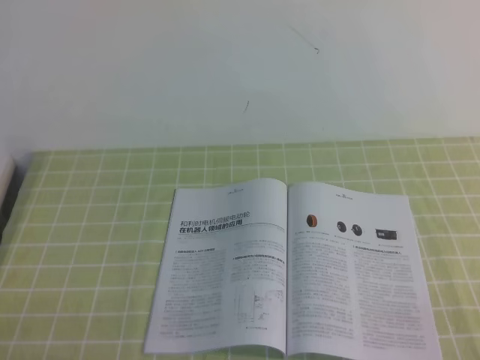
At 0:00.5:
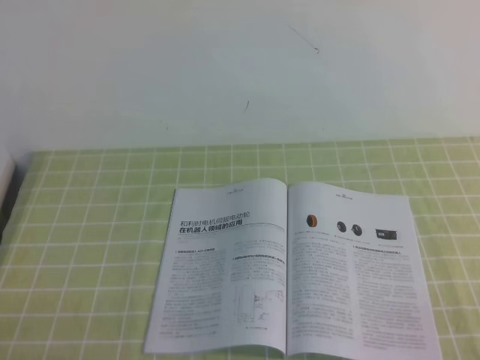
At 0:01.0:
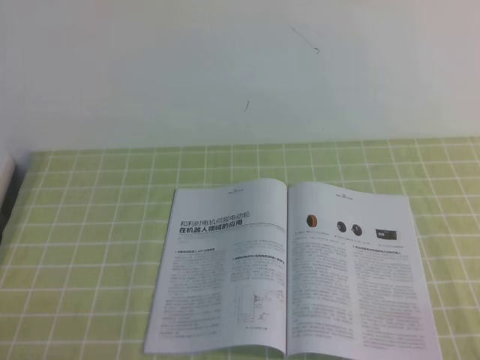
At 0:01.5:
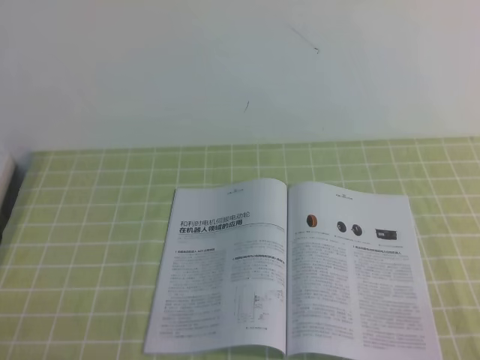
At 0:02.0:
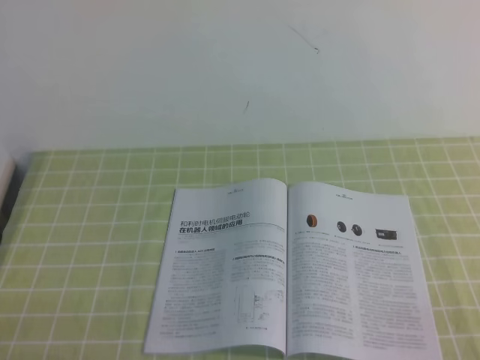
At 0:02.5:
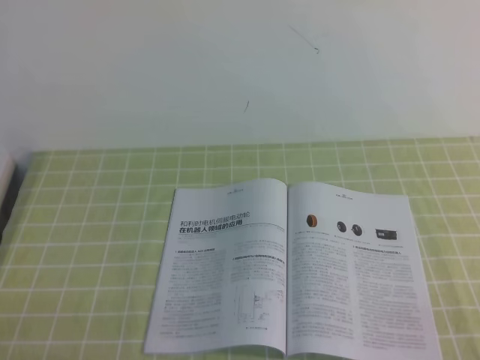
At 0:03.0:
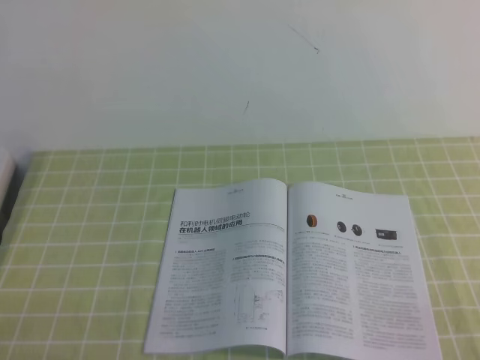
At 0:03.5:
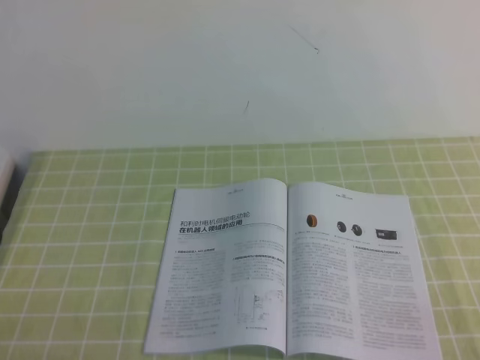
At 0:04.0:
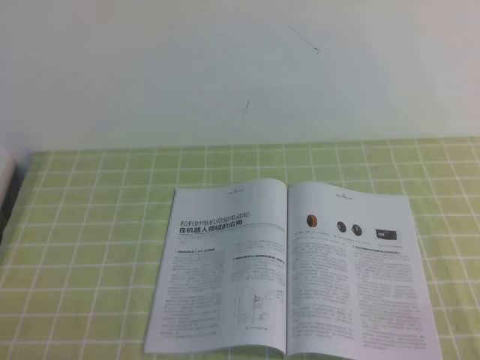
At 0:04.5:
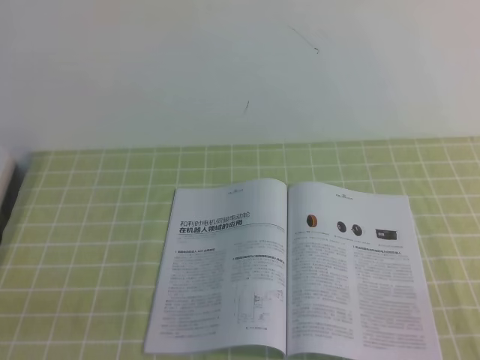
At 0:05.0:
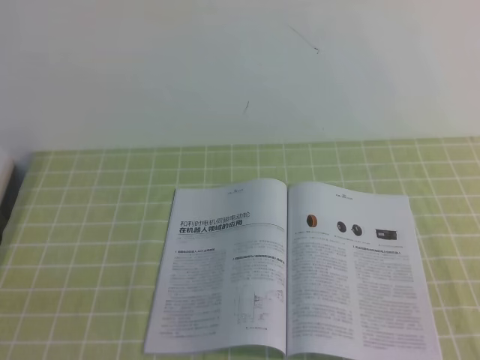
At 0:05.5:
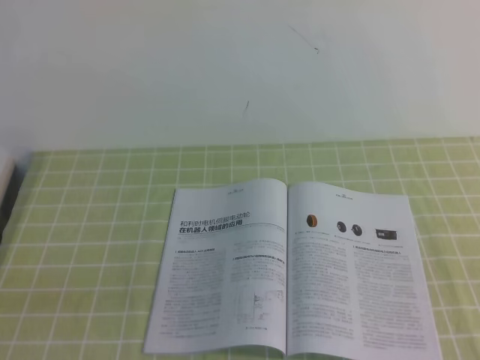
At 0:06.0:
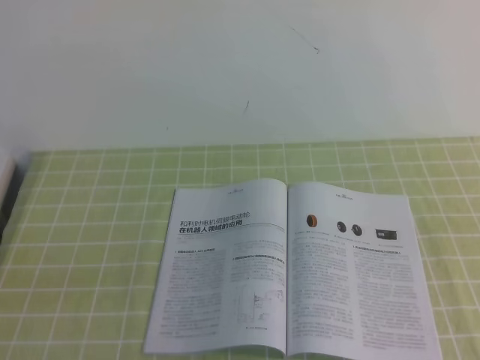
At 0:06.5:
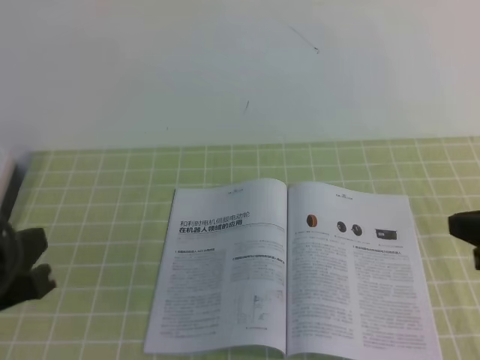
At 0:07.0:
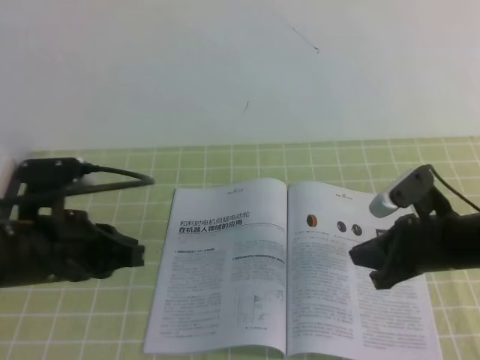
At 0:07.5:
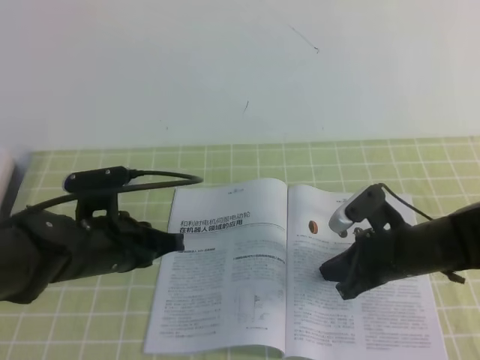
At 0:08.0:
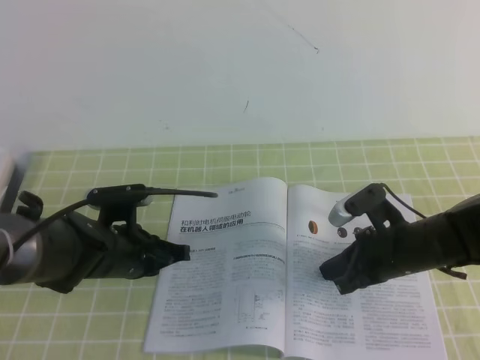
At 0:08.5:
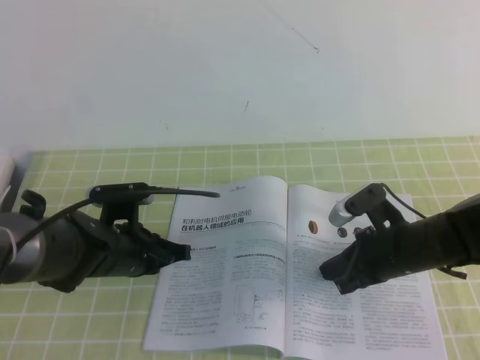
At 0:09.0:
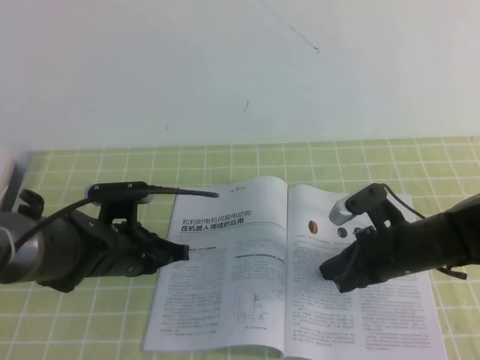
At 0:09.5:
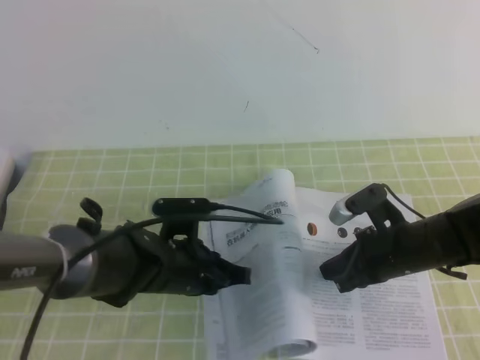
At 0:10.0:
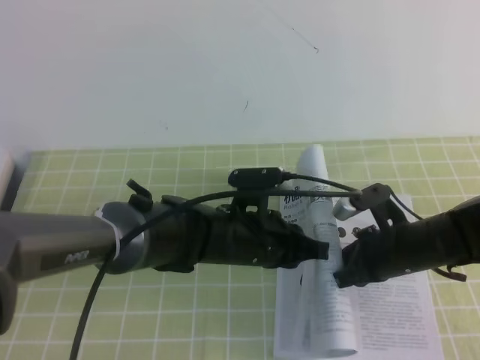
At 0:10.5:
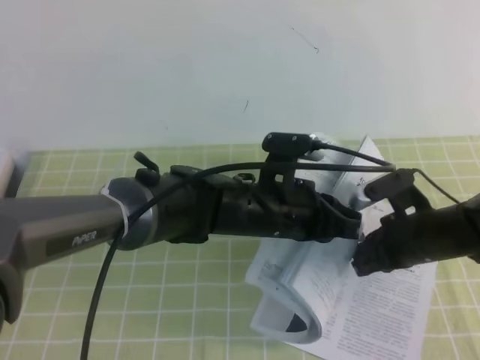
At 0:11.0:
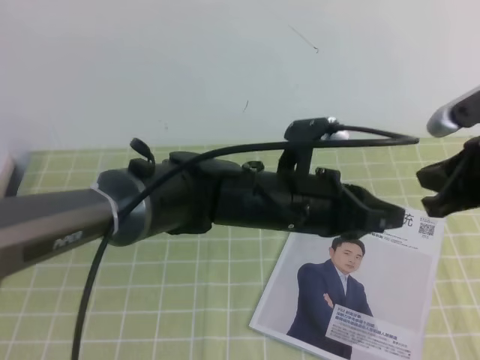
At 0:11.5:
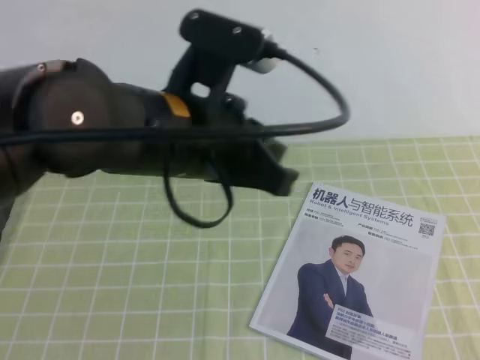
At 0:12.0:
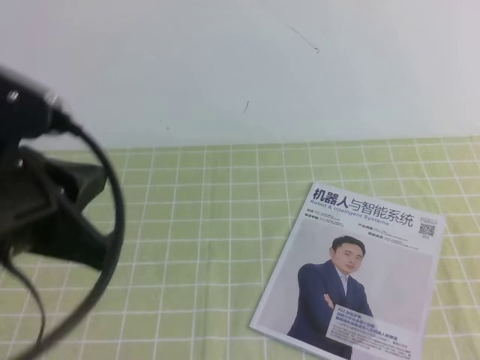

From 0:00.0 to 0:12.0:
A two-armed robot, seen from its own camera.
Task of the whole recording: on the green tablecloth, hold the book with one hand and close it with the other.
From 0:00.0 to 0:04.0: Both grippers stay put.
From 0:06.0 to 0:08.0: The left gripper travels forward and downward by roughly 30 cm. Meanwhile the right gripper heads downward, forward and to the left, covering approximately 35 cm.
From 0:08.0 to 0:10.0: The left gripper heads to the right, covering approximately 15 cm.
From 0:10.0 to 0:12.0: The right gripper moves backward, upward and to the right, some 35 cm, while the left gripper shifts roughly 30 cm upward, to the left and backward.

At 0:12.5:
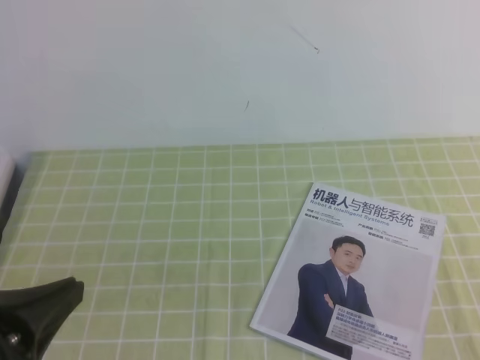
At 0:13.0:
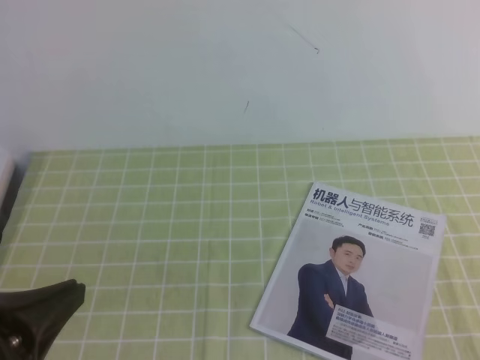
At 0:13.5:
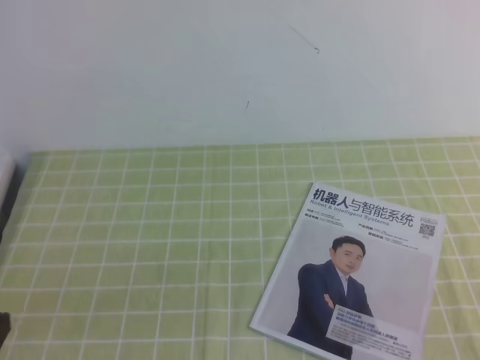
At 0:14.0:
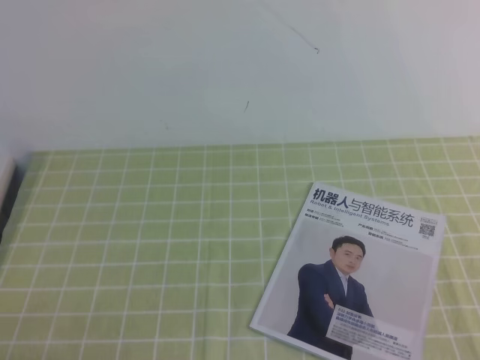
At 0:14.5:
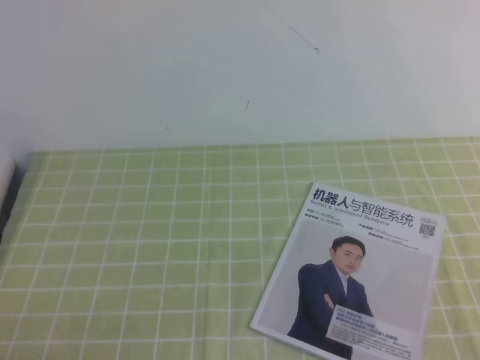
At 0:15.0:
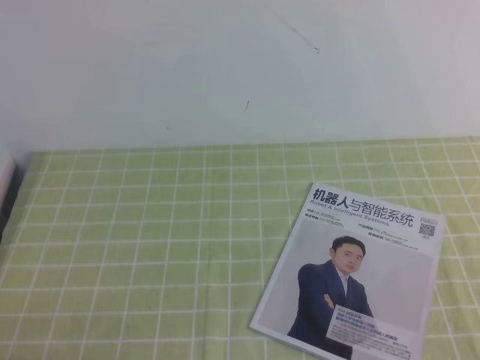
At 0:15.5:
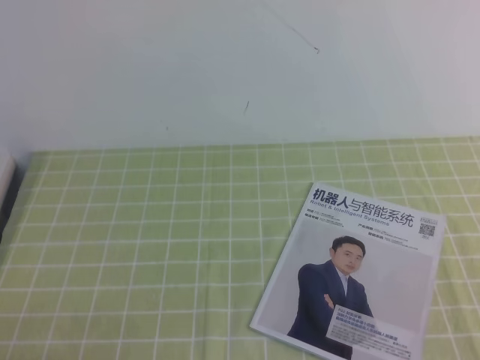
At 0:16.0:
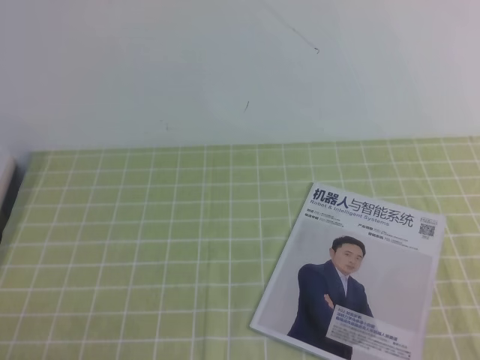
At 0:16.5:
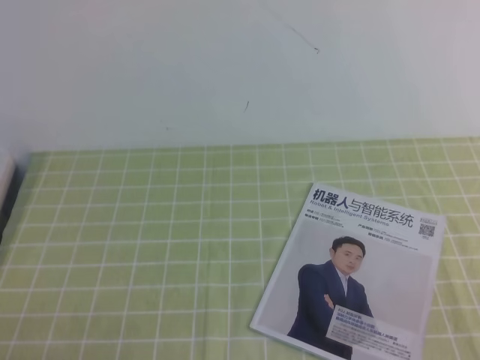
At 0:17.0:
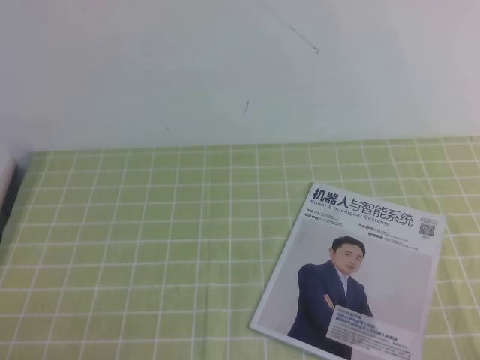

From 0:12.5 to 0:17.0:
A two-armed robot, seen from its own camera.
Task of the whole recording: on the green tablecloth, hold the book with one hand and close it with the other.
Step, from 0:12.5 to 0:17.0: Close the open book.
From 0:12.5 to 0:14.5: The left gripper is displaced downward and to the left by about 15 cm.
